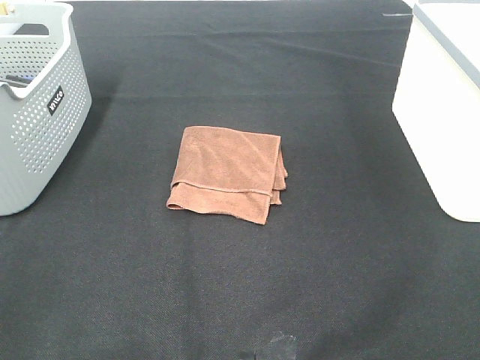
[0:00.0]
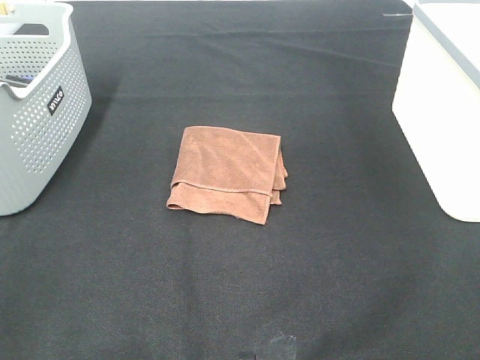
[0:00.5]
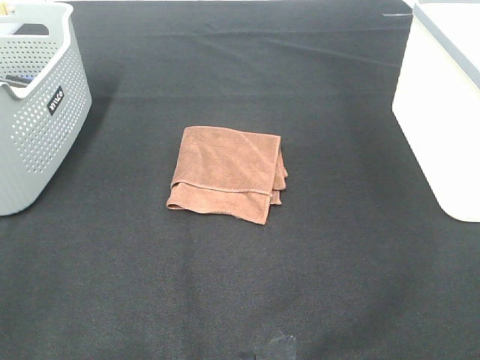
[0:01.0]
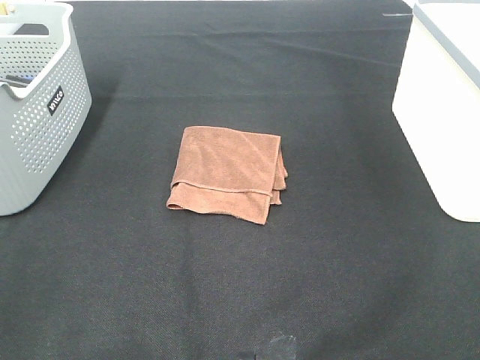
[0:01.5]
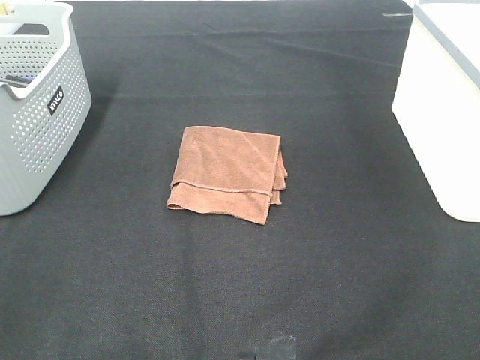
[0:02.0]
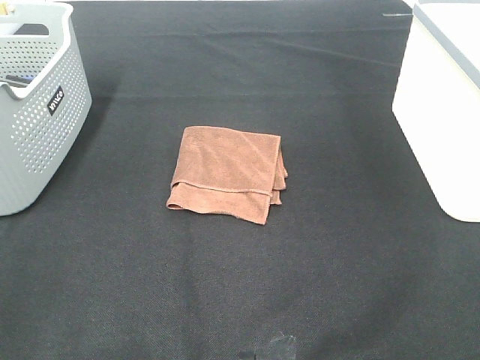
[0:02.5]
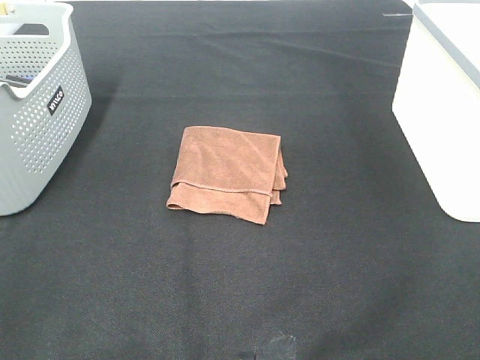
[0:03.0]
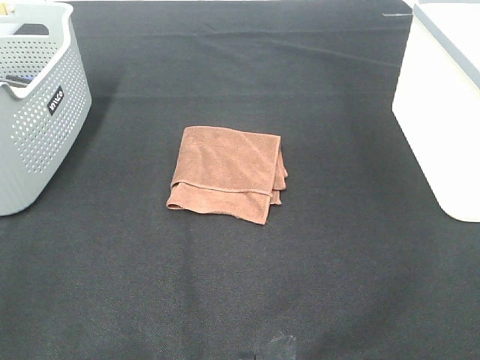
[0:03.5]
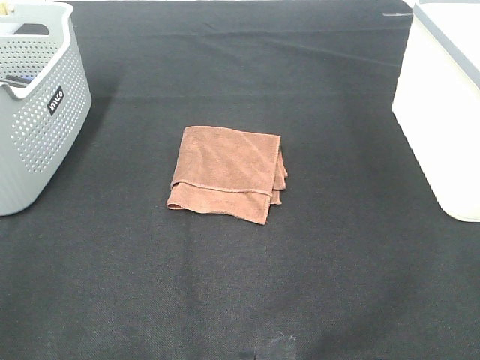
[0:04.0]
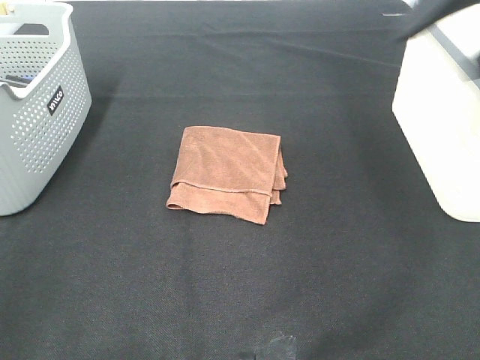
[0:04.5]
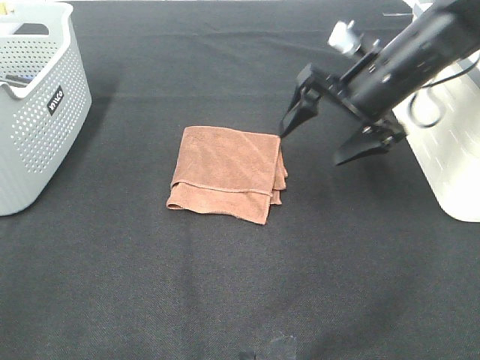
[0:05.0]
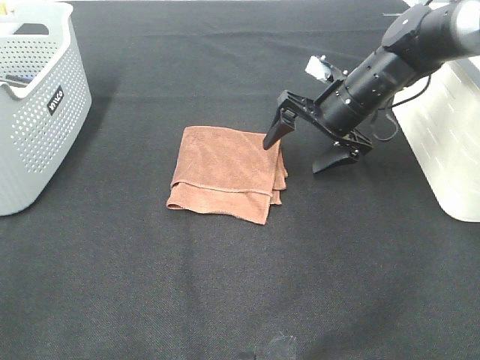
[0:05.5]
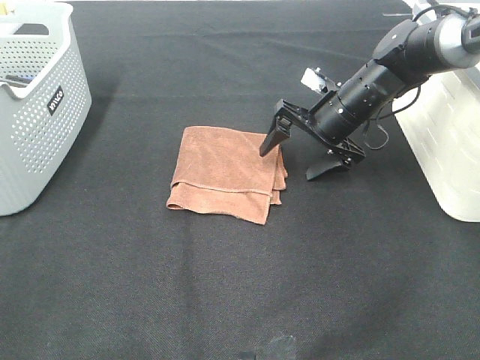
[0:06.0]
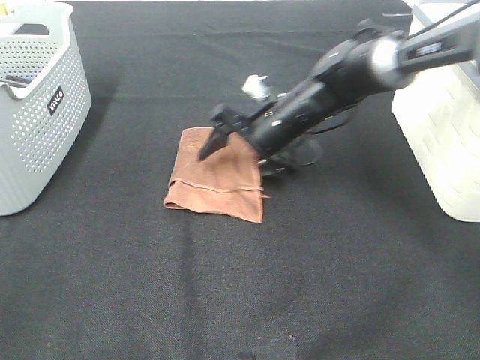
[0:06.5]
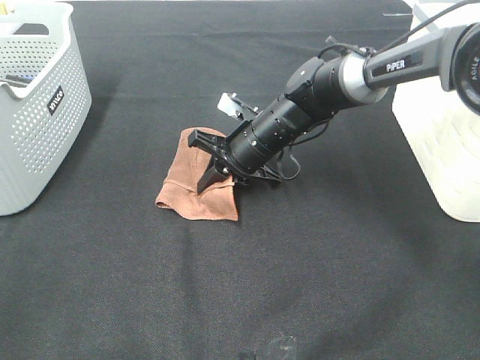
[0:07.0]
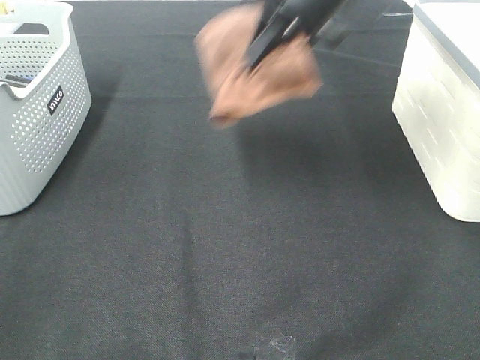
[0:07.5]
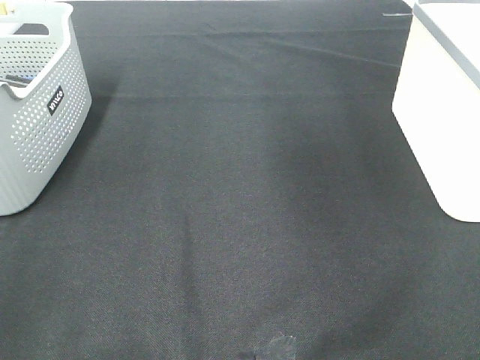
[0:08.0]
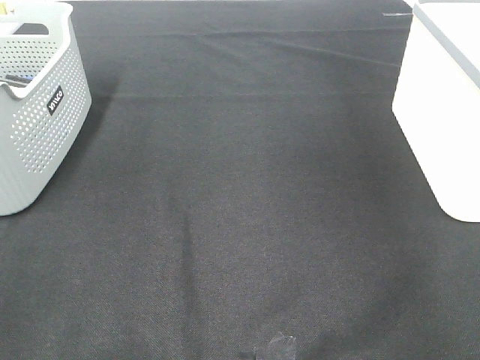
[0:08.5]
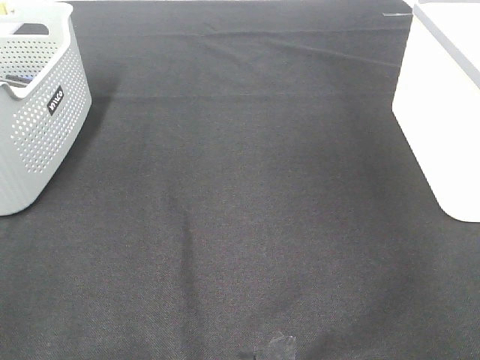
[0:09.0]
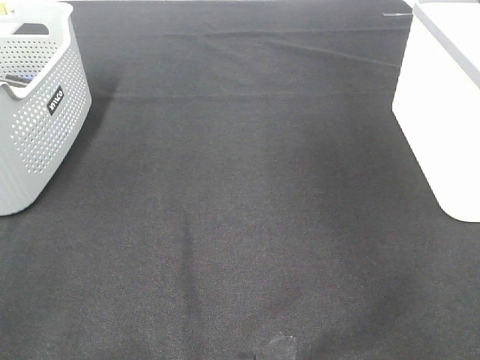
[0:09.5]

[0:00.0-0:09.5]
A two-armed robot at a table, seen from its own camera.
Step, 0:00.0 to 0:06.5: Right hand: grab the folded brown towel.
Step, 0:07.0 to 0:09.0: Right hand: place the brown towel in right basket.
0:00.0 to 0:02.0: Both grippers stay put.
0:04.0 to 0:05.5: The right gripper goes approximately 40 cm forward, downward and to the left.
0:05.5 to 0:07.5: The right gripper moves upward, roughly 20 cm, and closes up.
0:07.5 to 0:09.5: The right gripper is displaced to the right by about 20 cm, and opens.

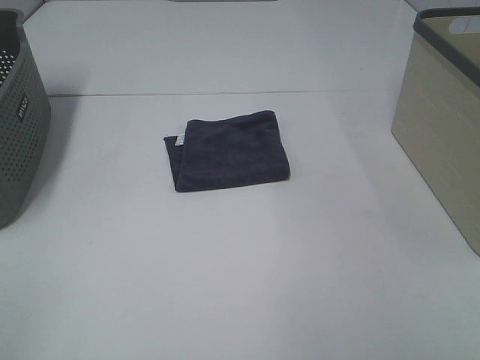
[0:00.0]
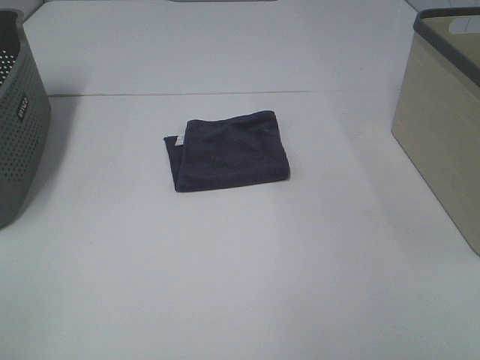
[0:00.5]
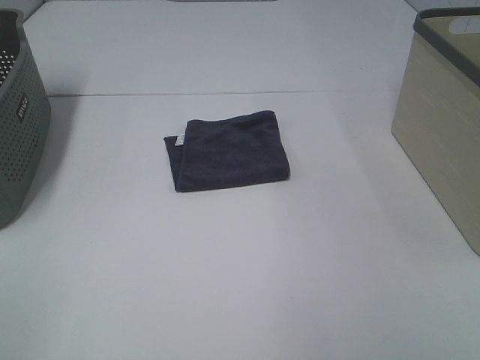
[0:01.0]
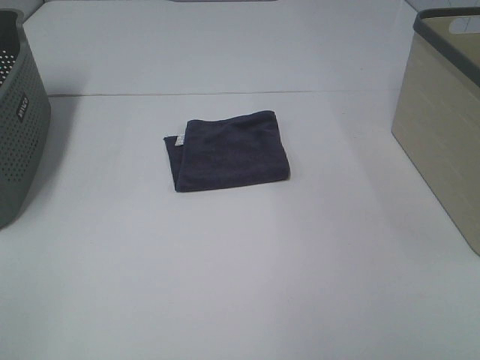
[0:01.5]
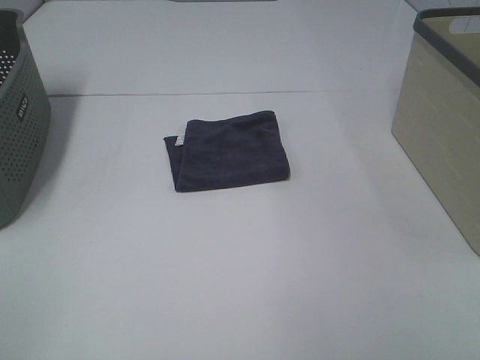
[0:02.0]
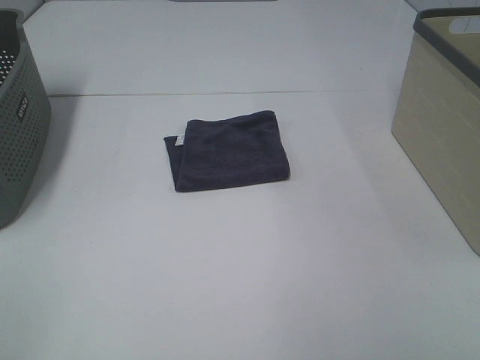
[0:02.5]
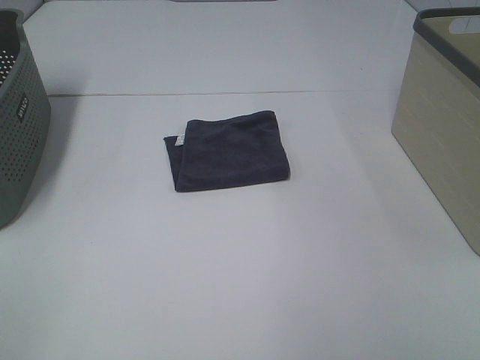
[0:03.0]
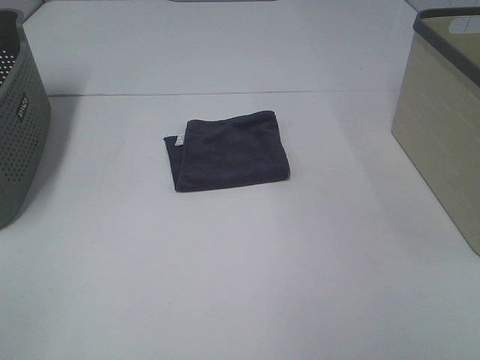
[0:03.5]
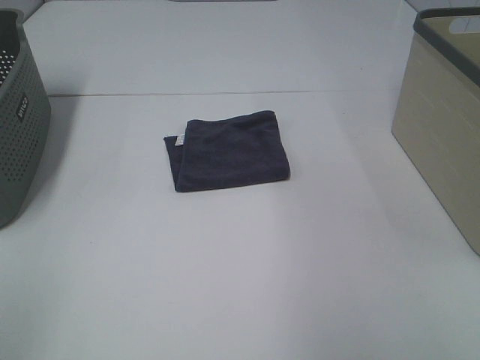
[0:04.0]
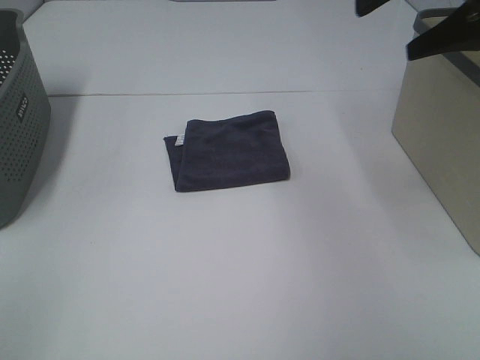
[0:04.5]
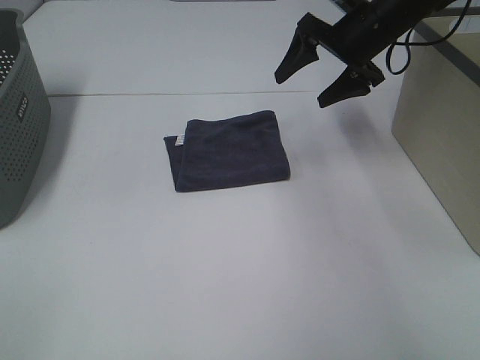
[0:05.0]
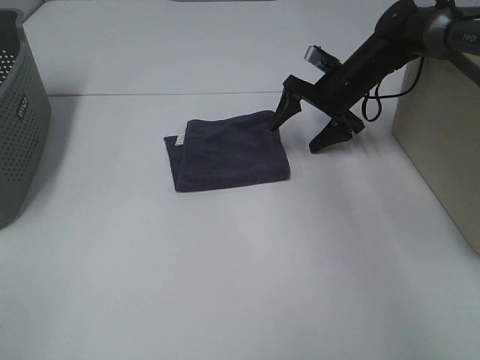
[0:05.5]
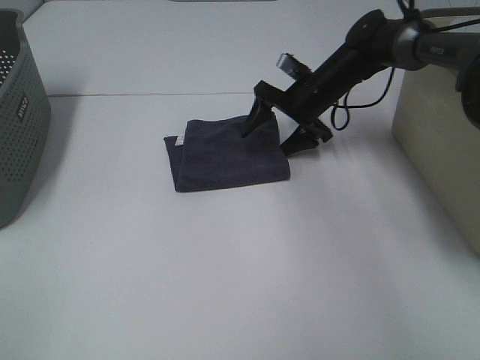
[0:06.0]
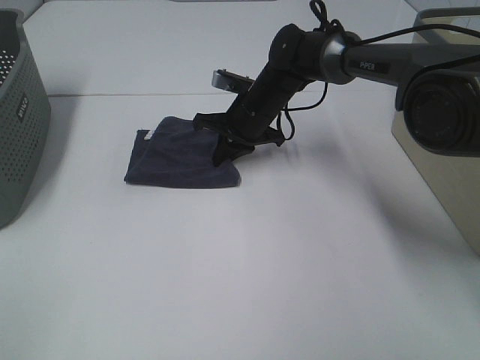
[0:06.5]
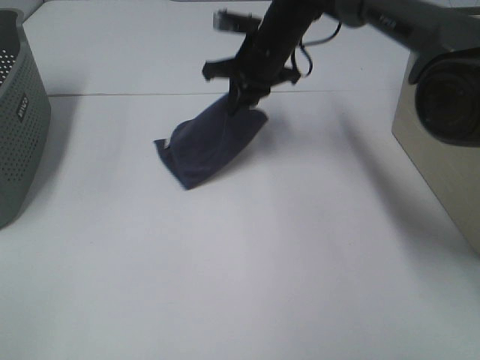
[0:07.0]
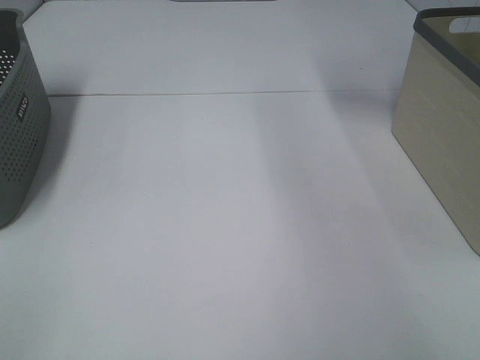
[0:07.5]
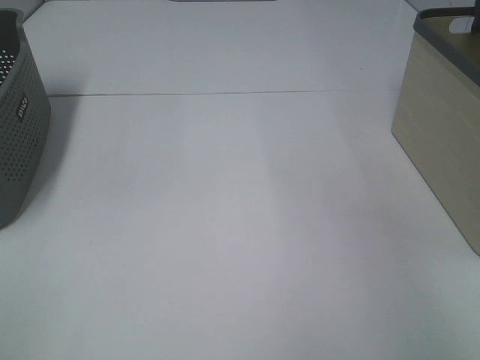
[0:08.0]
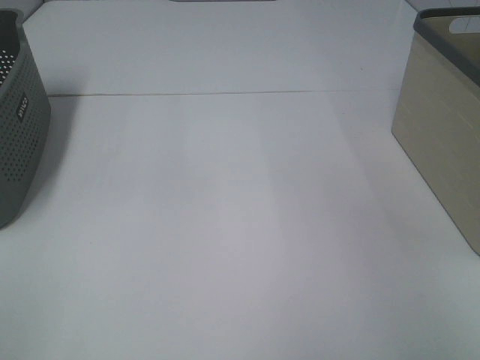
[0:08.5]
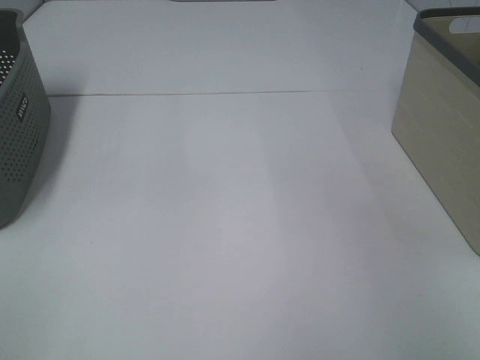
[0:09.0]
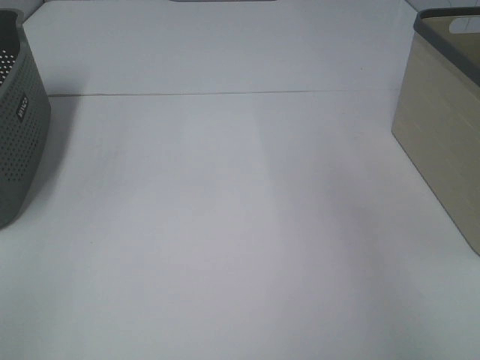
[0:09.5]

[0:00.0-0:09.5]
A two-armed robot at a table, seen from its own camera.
Step, 0:00.0 to 0:06.0: Right hand: grab the folded grey towel.
Step, 0:06.5 to 0:09.0: Right hand: place the grey towel in right basket.
0:00.0 to 0:02.0: Both grippers stay about where they are.
0:04.0 to 0:05.5: The right gripper goes approximately 40 cm forward and downward.
0:05.5 to 0:07.5: The right gripper is displaced upward by some 35 cm, and closes its fingers.

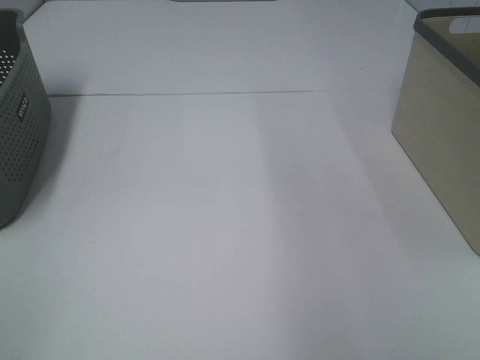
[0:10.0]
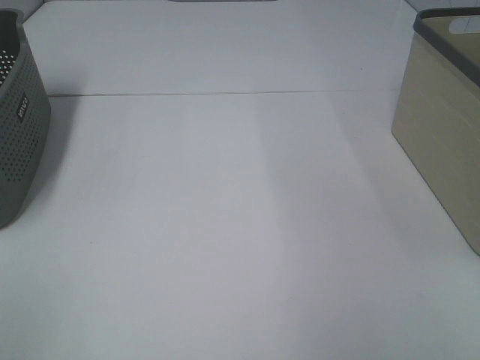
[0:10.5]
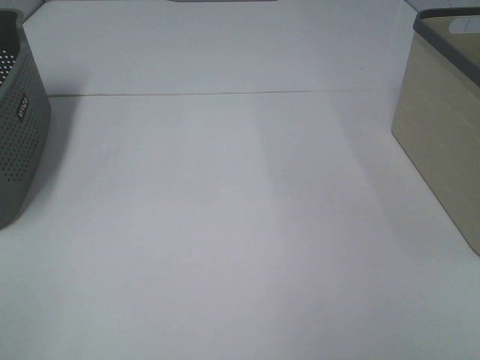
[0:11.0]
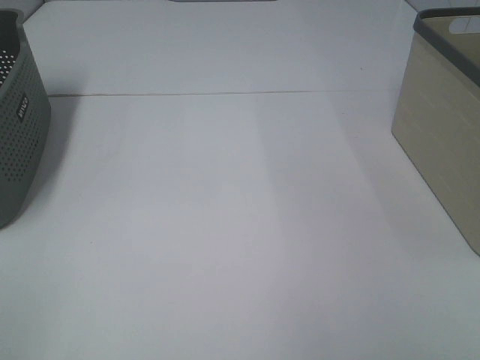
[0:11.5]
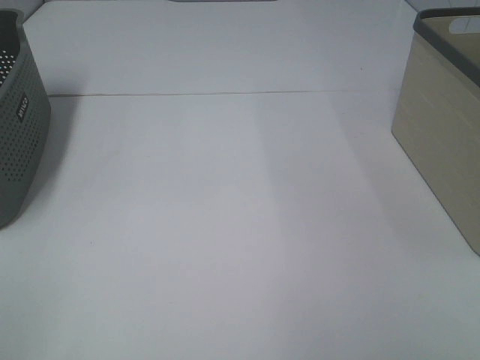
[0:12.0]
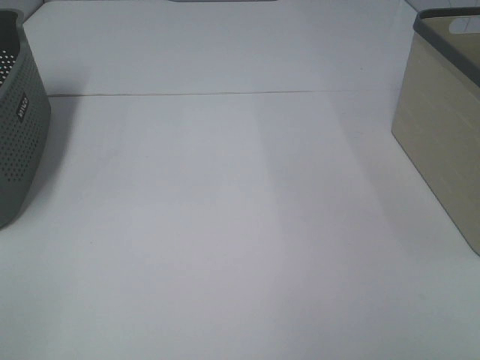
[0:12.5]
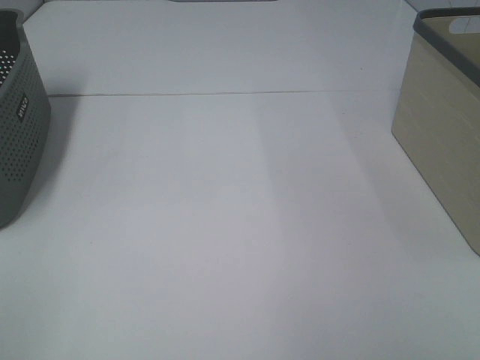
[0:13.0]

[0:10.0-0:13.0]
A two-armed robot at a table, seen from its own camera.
0:11.5 to 0:13.0: The two grippers keep their place.

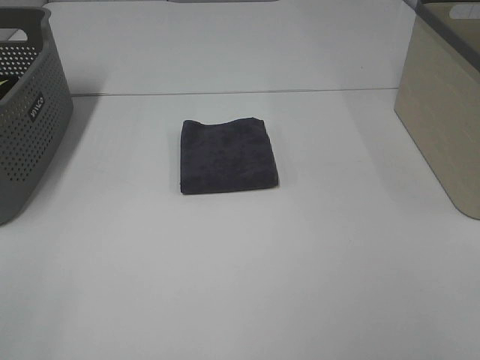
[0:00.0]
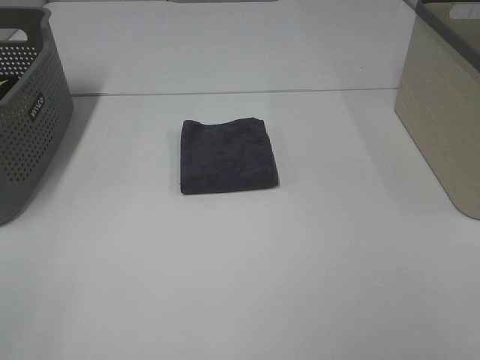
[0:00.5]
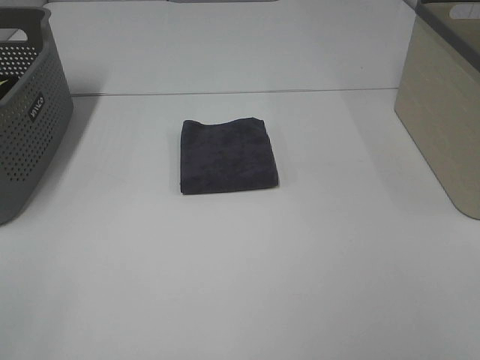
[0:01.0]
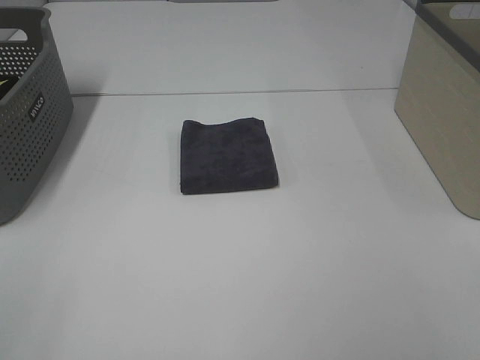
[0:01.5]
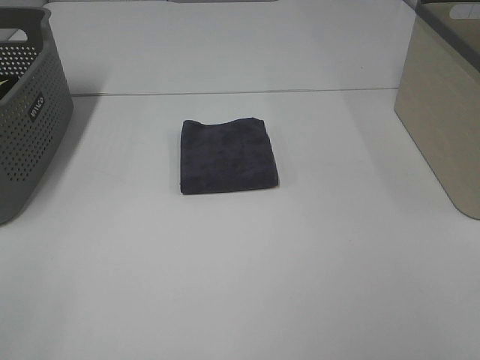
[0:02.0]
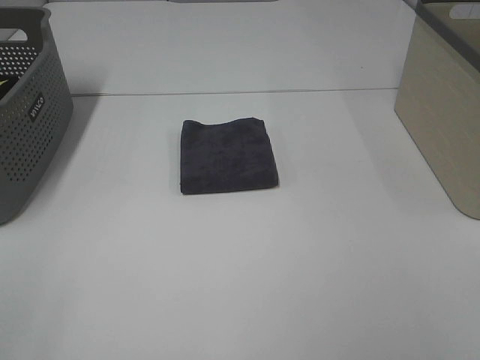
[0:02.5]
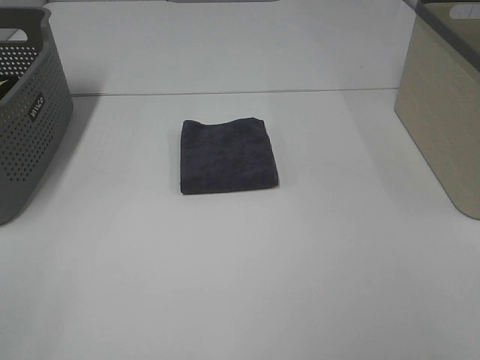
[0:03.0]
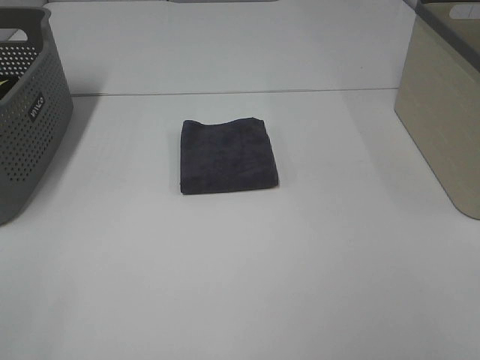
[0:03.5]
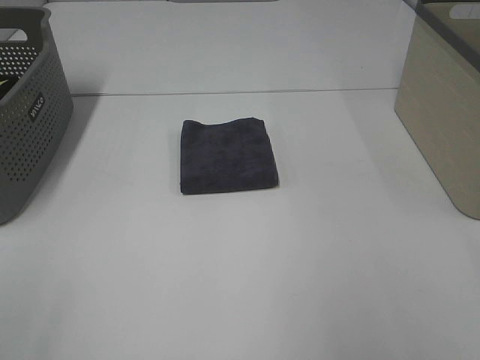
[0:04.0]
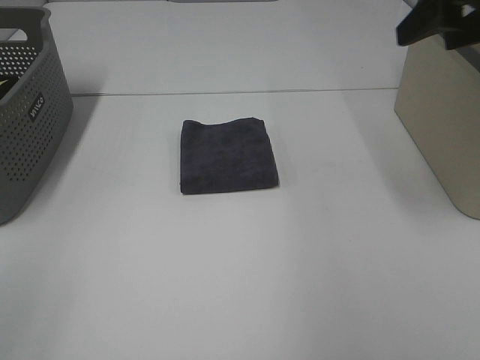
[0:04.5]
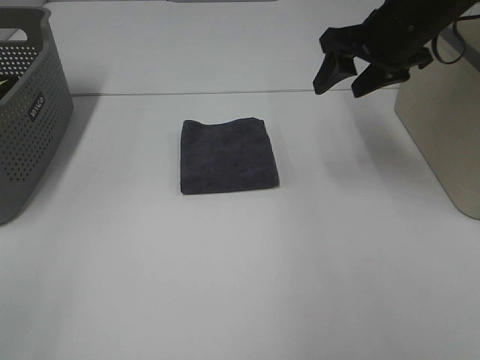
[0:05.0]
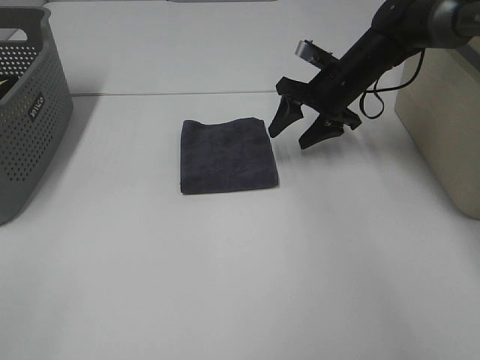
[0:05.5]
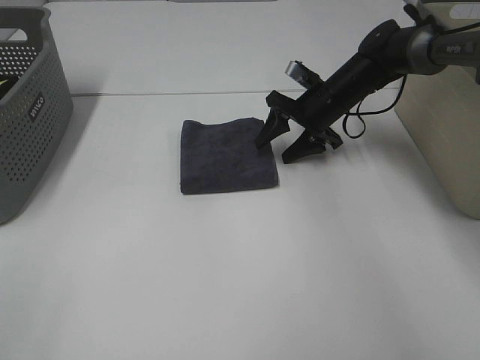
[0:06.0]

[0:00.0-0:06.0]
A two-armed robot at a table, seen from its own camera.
0:00.0 to 0:02.0: The two grippers keep their place.
0:04.0 to 0:06.0: The right gripper travels forward and downward by about 40 cm.
